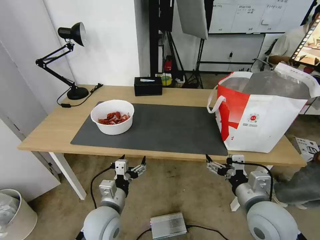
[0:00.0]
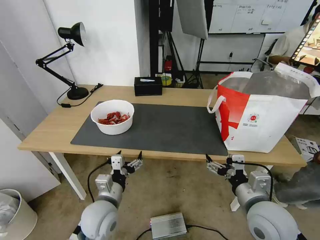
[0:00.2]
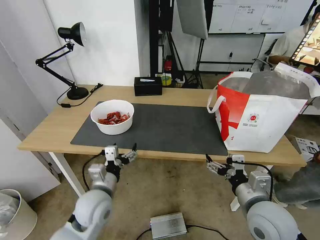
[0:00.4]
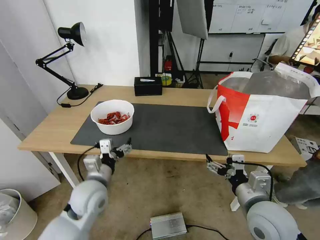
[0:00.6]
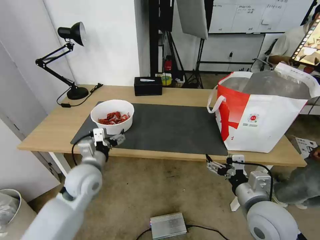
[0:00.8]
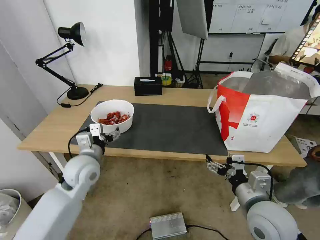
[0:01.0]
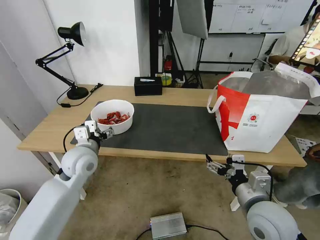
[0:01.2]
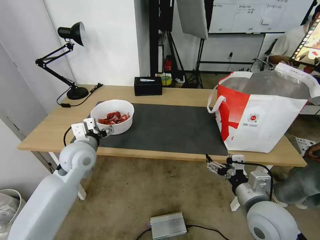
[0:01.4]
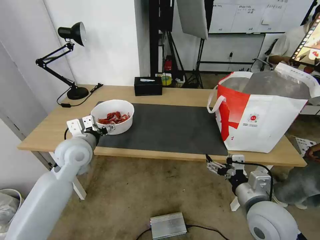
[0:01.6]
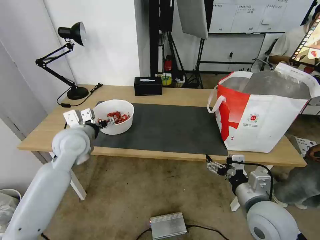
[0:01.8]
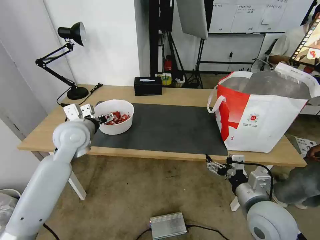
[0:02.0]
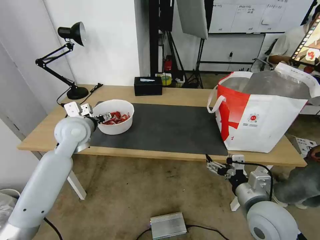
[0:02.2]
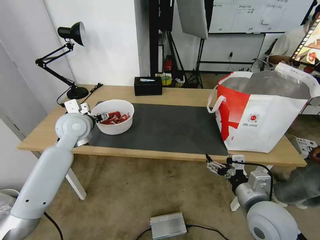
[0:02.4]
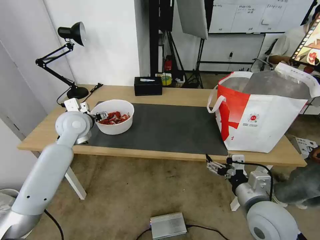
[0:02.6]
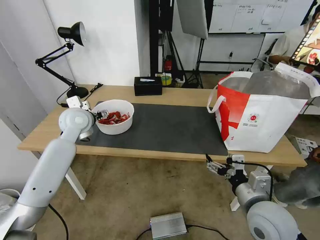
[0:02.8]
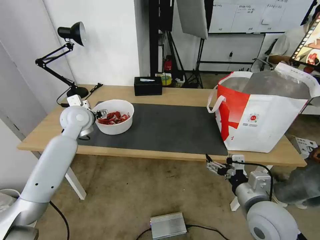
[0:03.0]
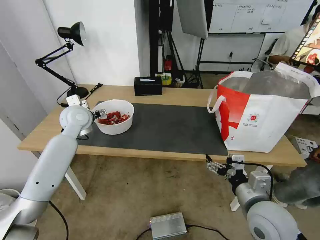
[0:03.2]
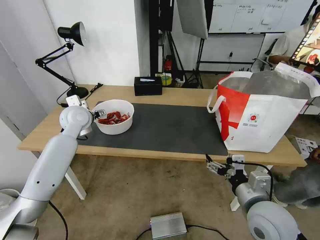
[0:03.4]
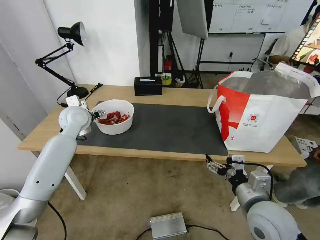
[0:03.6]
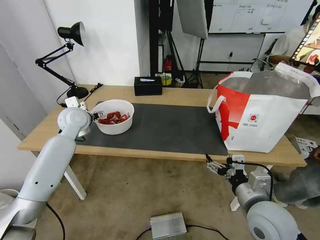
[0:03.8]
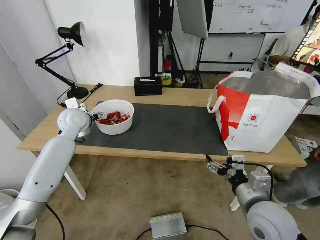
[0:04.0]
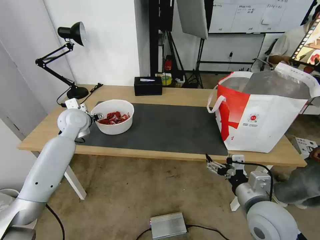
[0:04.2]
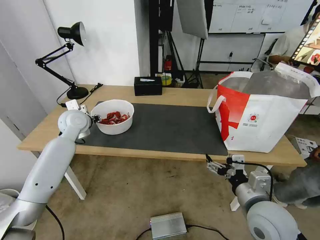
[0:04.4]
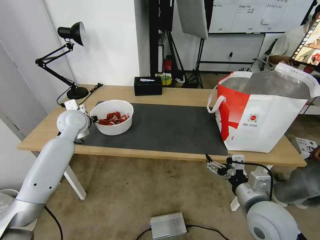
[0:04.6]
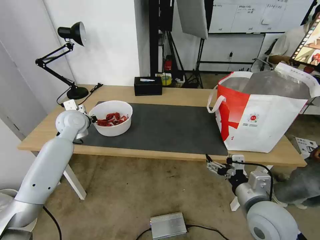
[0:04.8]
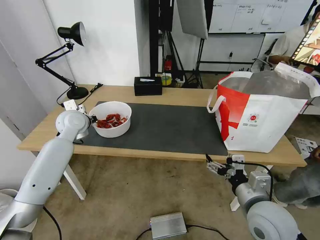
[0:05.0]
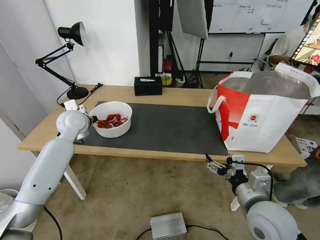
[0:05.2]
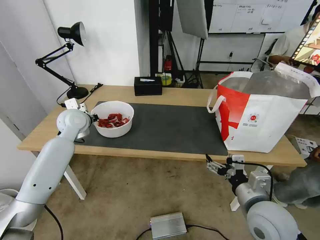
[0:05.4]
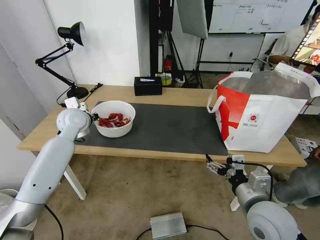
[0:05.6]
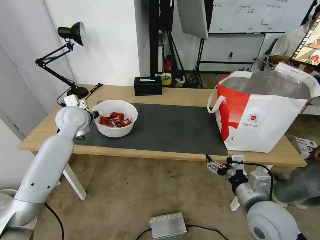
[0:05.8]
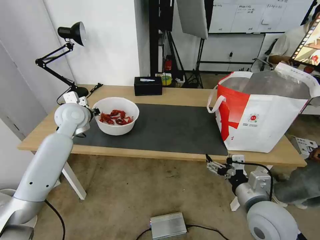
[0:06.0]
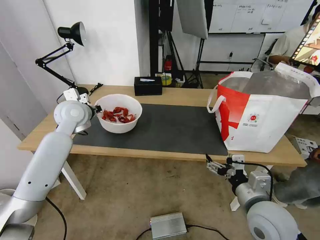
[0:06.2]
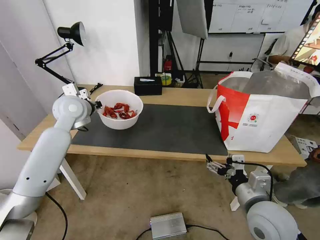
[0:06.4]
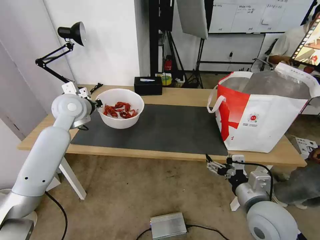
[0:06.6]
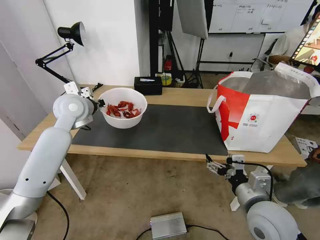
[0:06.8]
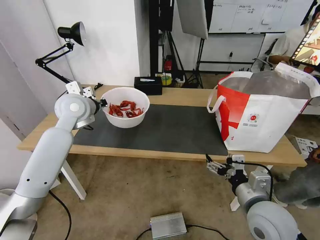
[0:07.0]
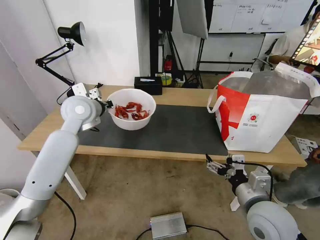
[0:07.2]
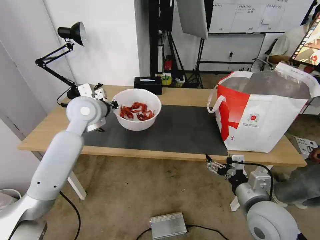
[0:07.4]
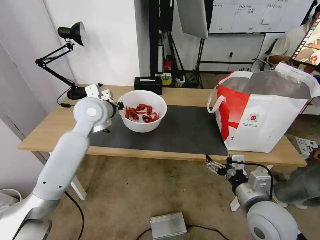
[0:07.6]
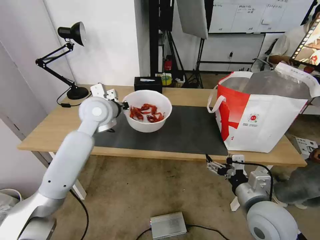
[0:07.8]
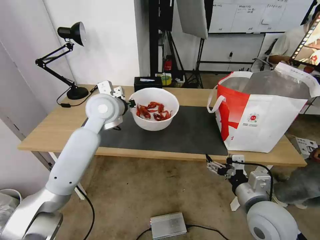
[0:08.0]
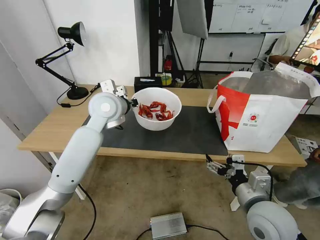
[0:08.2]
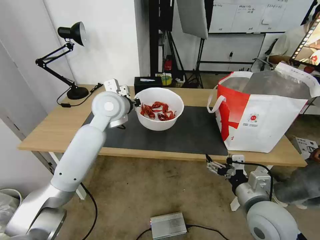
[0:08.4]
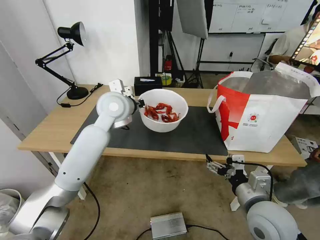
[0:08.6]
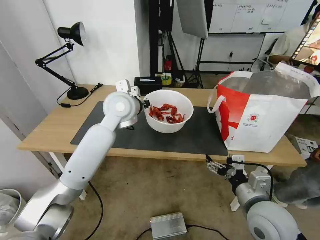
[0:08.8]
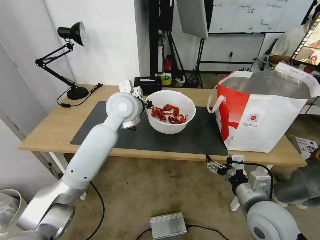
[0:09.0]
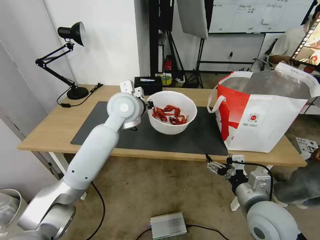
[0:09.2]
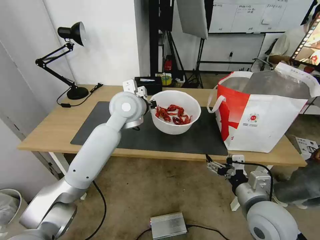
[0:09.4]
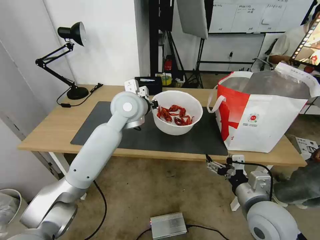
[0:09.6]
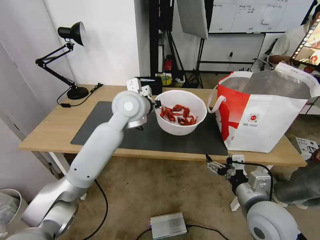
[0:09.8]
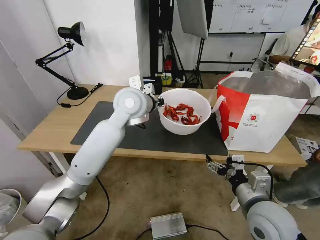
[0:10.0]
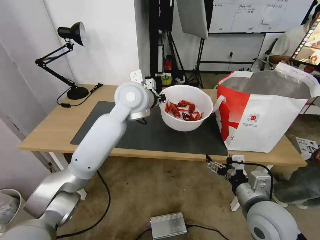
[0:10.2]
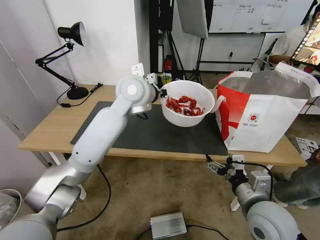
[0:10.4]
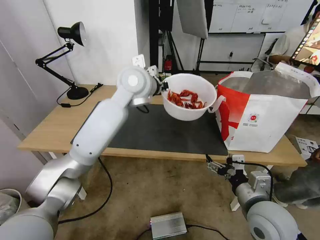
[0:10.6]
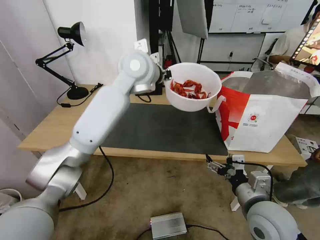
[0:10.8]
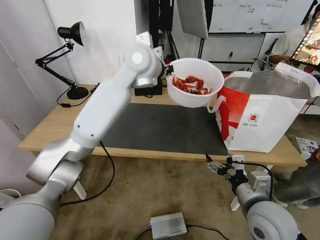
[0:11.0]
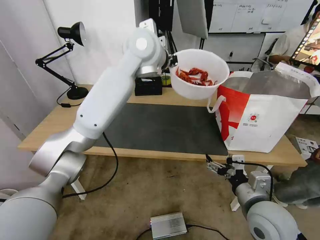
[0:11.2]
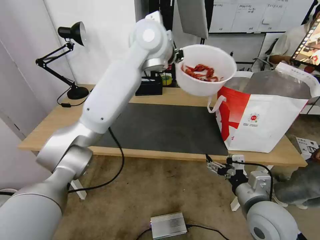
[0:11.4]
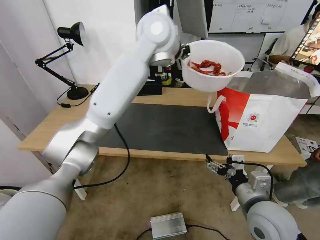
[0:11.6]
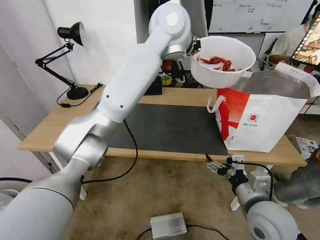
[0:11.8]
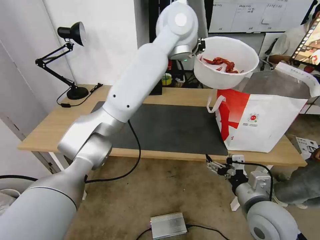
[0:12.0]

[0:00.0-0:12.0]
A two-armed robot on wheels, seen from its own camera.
Task of the whole recording: Pick up the trash from the table and place it into the takeout bag.
0:00.0 to 0:01.6: The left gripper heads forward, upward and to the left, covering roughly 20 cm.
0:01.6 to 0:03.0: The left gripper moves forward, roughly 10 cm.
0:03.0 to 0:04.4: The left gripper closes.
0:04.4 to 0:06.0: The left gripper closes.
0:06.0 to 0:07.6: The left gripper shifts approximately 10 cm to the right.
0:07.6 to 0:09.0: The left gripper travels to the right by about 10 cm.
0:09.0 to 0:10.4: The left gripper shifts roughly 5 cm upward.
0:10.4 to 0:12.0: The left gripper heads upward and to the right, covering some 15 cm.

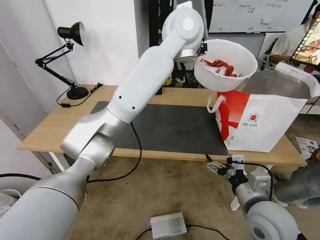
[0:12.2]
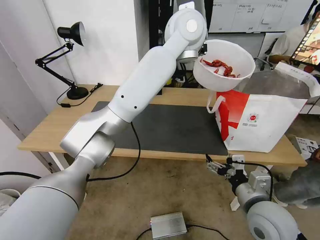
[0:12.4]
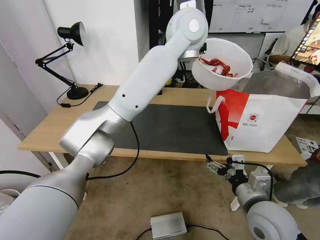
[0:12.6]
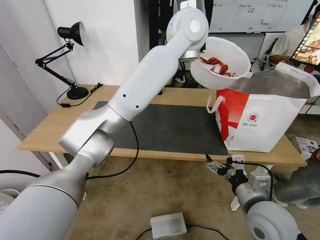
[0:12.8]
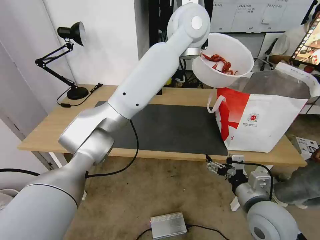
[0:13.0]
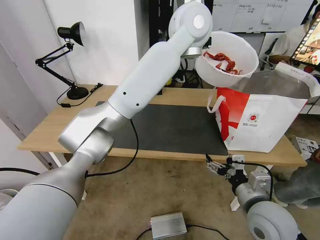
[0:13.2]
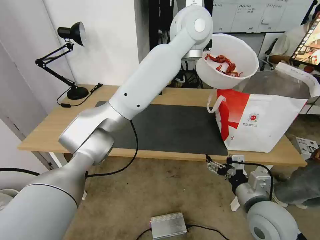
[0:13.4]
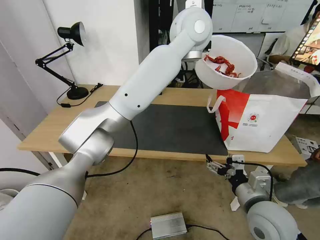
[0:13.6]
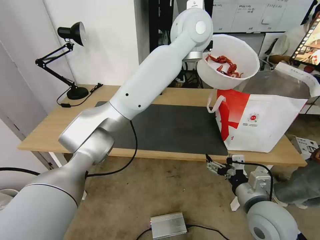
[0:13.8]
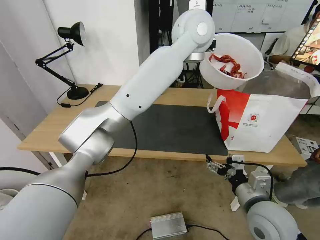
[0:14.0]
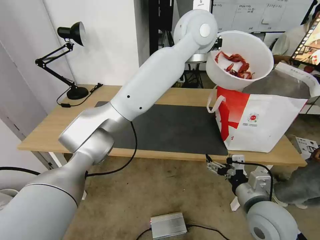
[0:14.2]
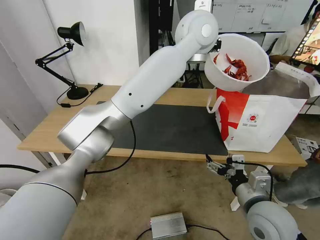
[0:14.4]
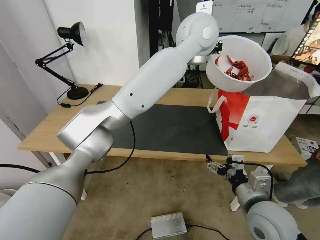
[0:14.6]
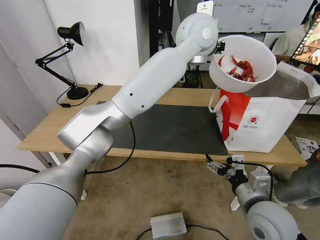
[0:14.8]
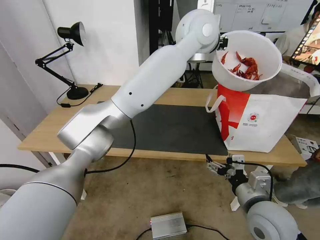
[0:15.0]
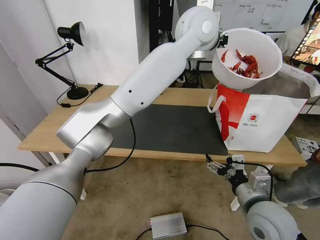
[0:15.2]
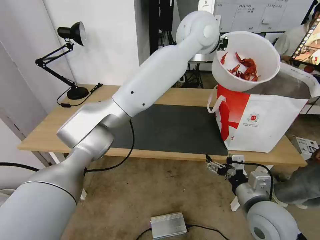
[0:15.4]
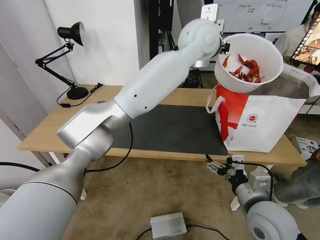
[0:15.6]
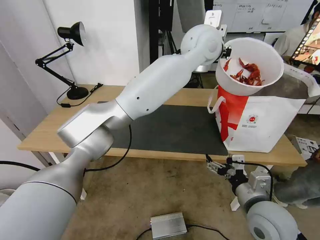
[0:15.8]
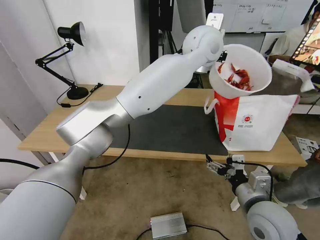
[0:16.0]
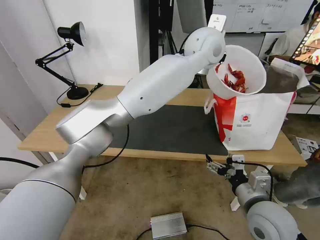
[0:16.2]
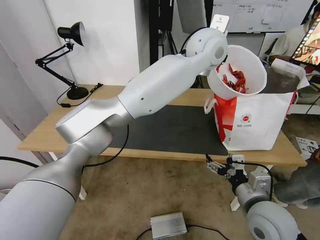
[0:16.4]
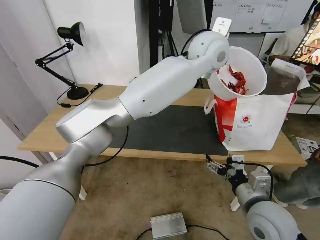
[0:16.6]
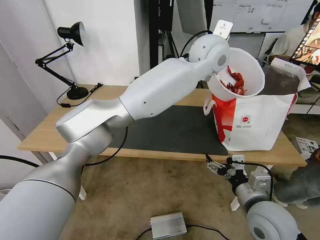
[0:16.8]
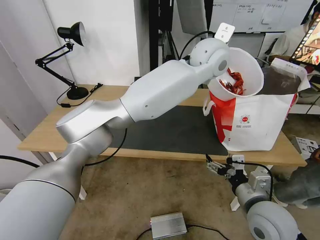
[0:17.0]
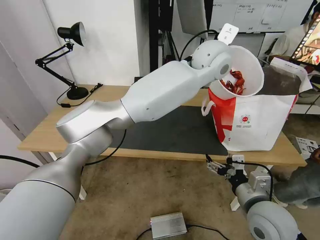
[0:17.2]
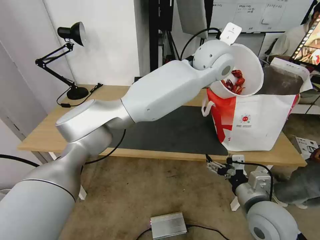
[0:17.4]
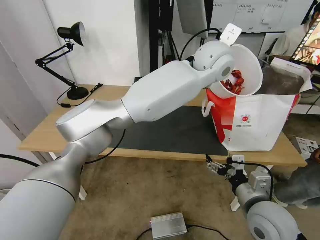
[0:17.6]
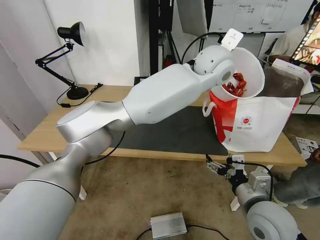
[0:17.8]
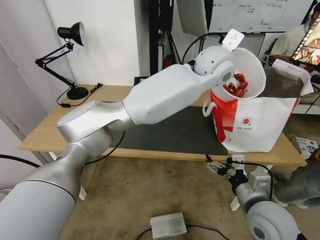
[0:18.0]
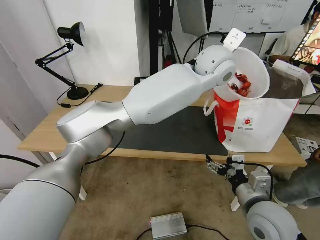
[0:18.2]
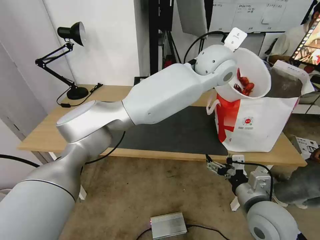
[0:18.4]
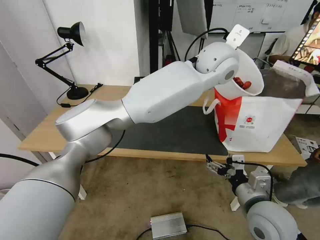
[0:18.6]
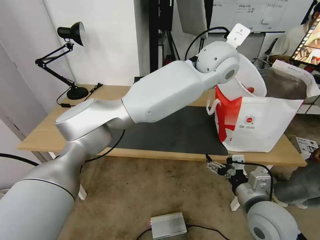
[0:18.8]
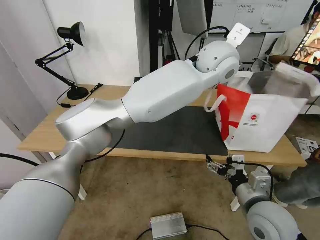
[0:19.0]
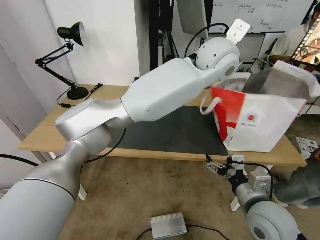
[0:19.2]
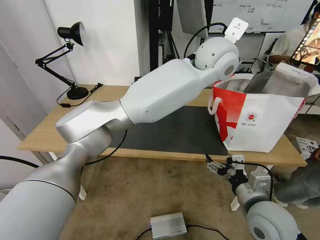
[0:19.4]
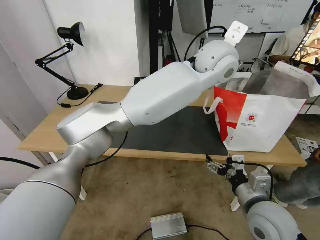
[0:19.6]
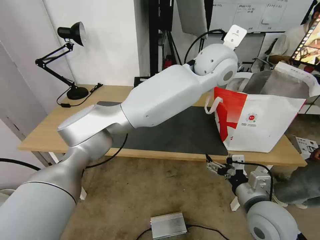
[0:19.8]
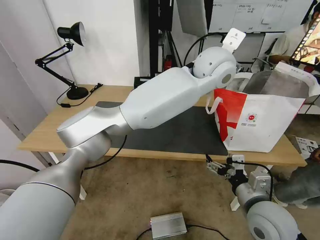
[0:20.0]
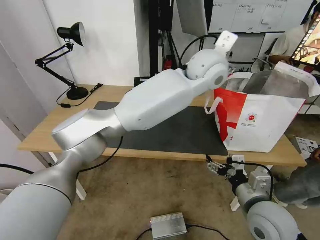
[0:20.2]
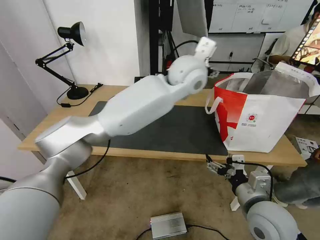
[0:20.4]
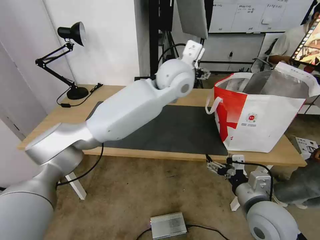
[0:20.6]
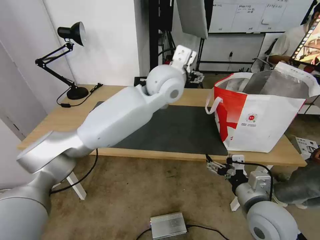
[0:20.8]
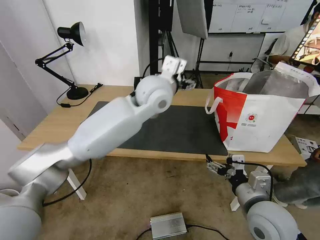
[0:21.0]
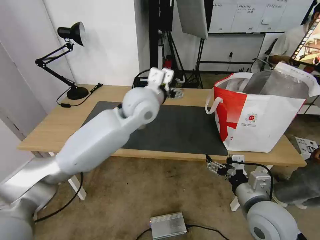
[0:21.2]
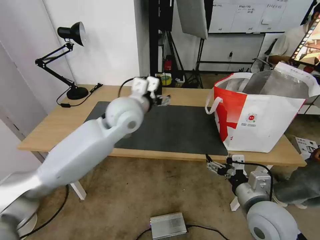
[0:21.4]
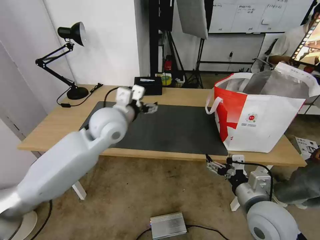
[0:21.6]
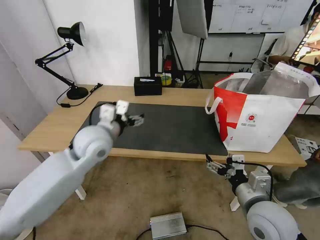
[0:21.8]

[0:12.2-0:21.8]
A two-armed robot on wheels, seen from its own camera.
Task of the whole recording: Pick up the trash from the table and place it into the takeout bag.
0:12.2 to 0:15.4: The grippers make only small movements.
0:15.4 to 0:17.0: The left gripper moves downward, roughly 5 cm.
0:17.0 to 0:18.6: The left gripper opens its fingers.
0:18.6 to 0:20.2: The left gripper opens up.
0:20.2 to 0:21.8: The left gripper travels to the left and downward by about 35 cm.

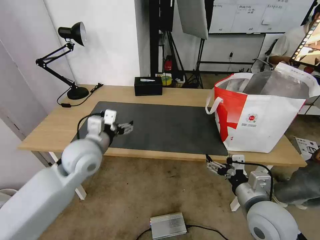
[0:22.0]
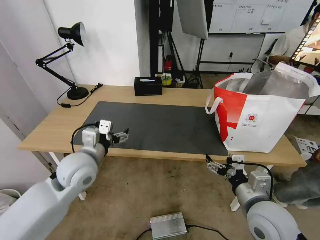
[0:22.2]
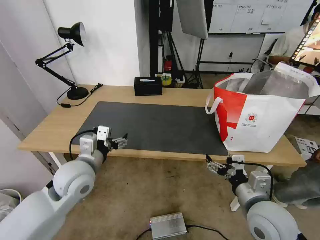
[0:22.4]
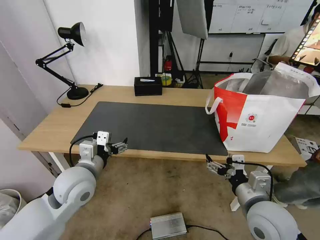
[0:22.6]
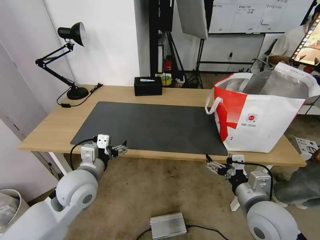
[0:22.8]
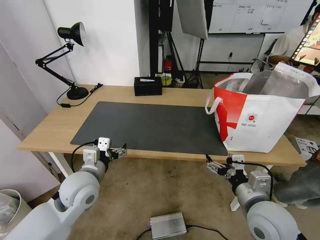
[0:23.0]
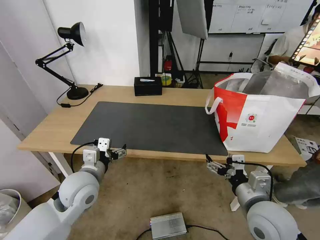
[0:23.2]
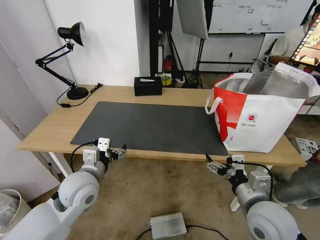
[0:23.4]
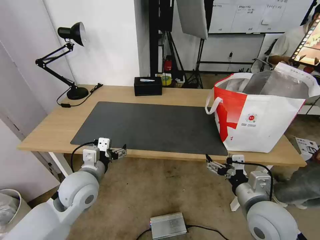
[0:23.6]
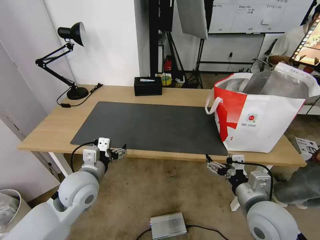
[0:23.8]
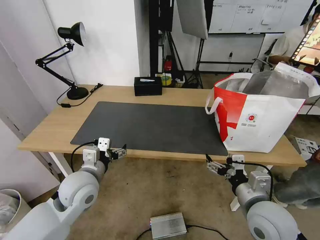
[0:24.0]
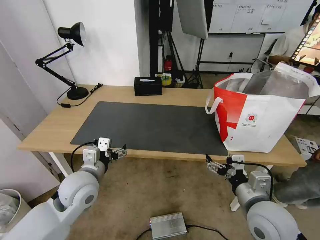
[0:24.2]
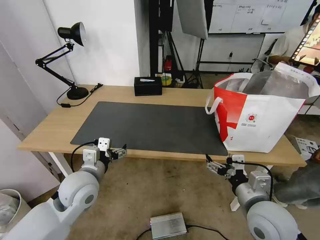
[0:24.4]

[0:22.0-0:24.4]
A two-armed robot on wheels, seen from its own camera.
Task of the whole recording: Pick up the trash from the table and place it into the takeout bag.
0:22.0 to 0:23.2: The left gripper moves downward and backward, approximately 10 cm.
0:23.2 to 0:24.4: The two grippers keep their place.
